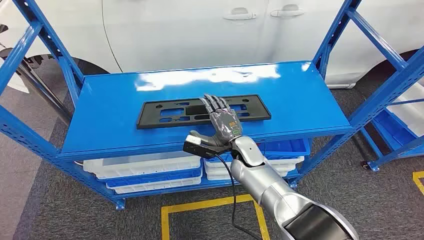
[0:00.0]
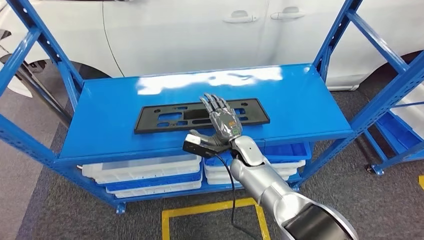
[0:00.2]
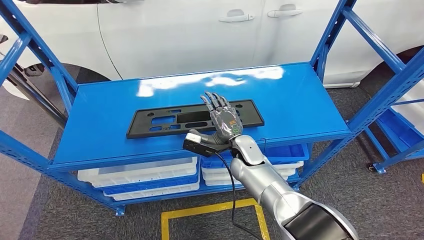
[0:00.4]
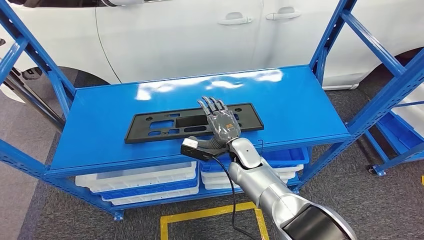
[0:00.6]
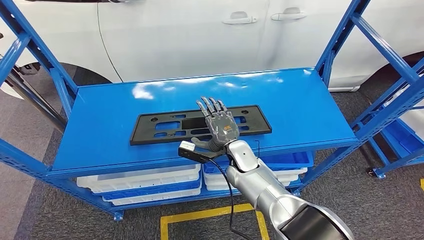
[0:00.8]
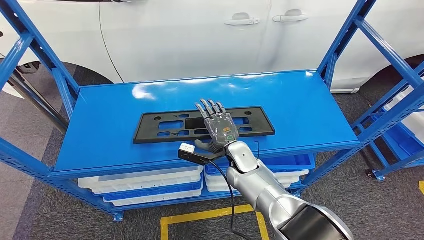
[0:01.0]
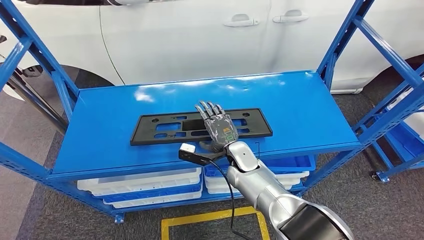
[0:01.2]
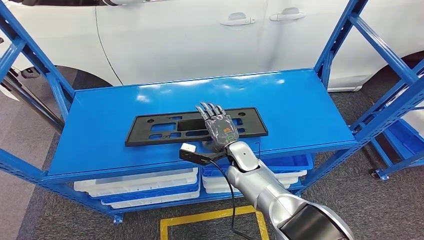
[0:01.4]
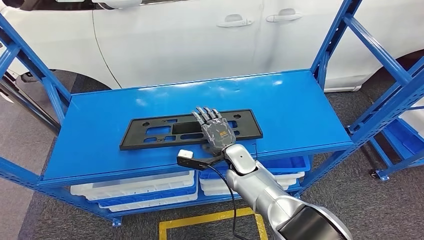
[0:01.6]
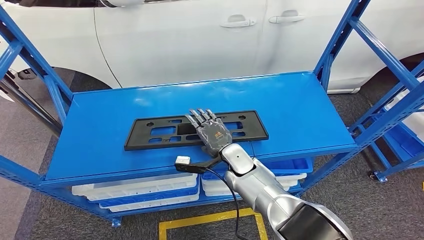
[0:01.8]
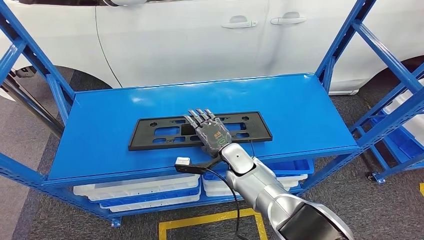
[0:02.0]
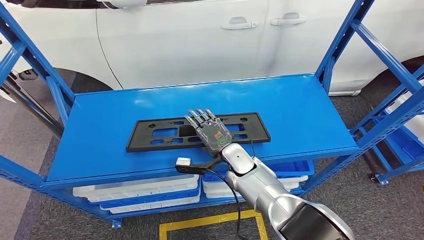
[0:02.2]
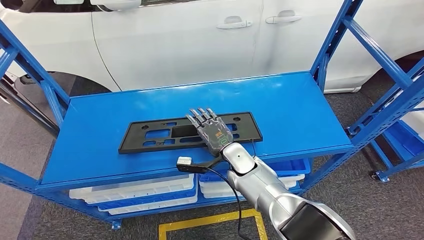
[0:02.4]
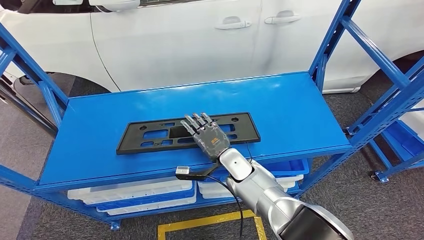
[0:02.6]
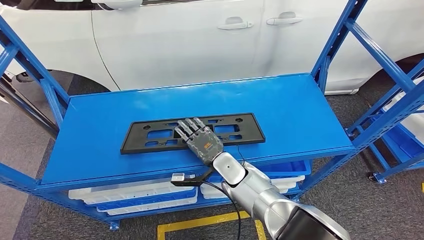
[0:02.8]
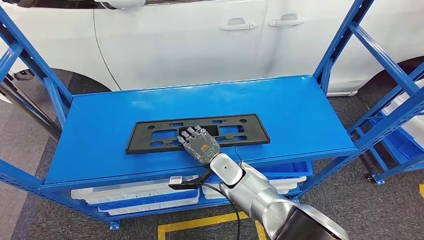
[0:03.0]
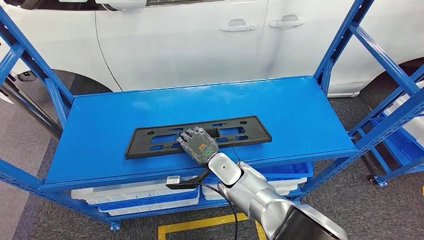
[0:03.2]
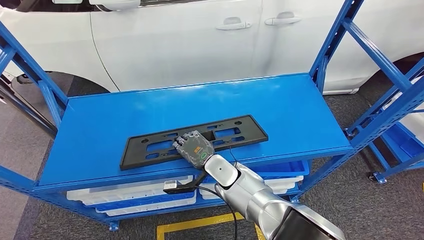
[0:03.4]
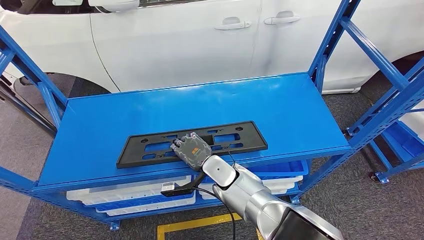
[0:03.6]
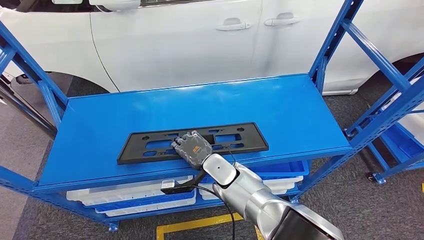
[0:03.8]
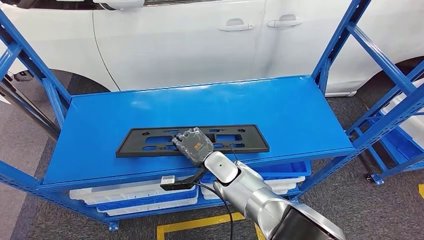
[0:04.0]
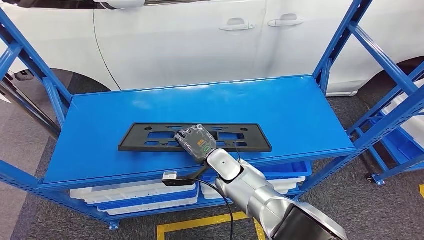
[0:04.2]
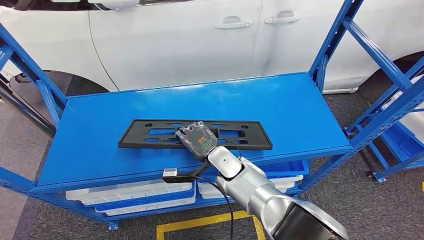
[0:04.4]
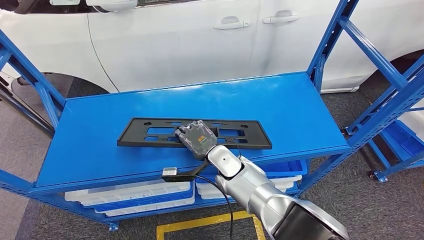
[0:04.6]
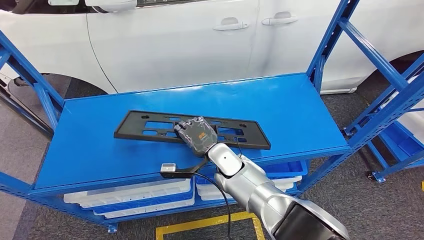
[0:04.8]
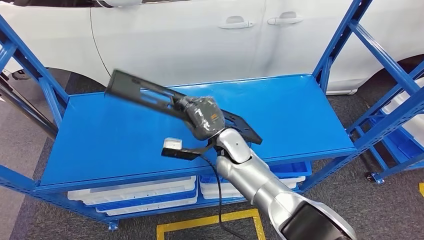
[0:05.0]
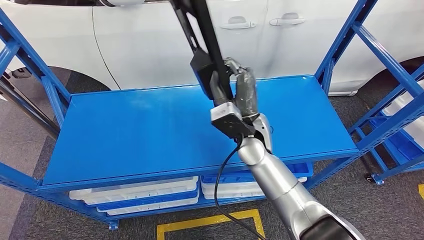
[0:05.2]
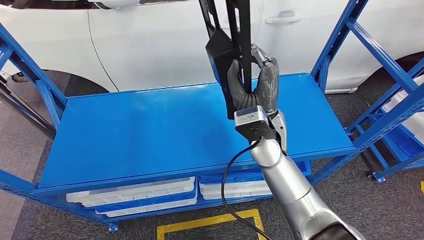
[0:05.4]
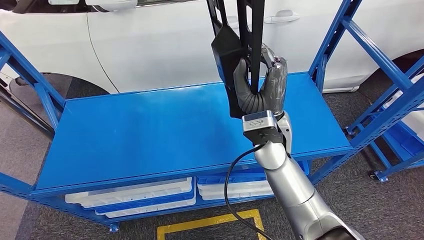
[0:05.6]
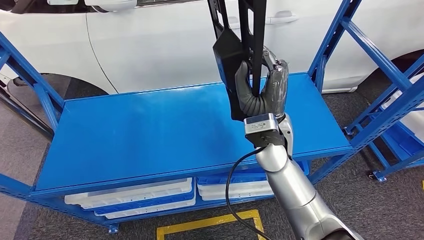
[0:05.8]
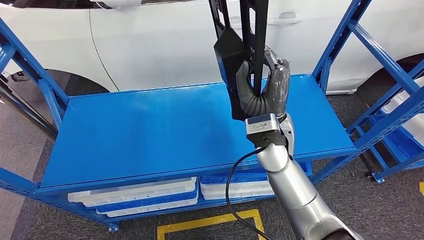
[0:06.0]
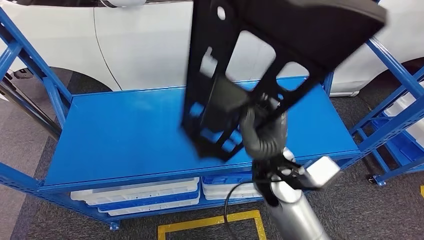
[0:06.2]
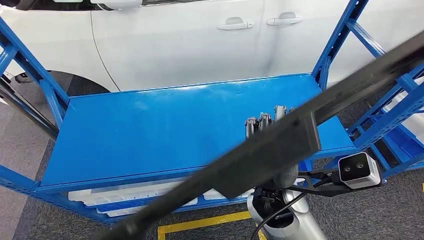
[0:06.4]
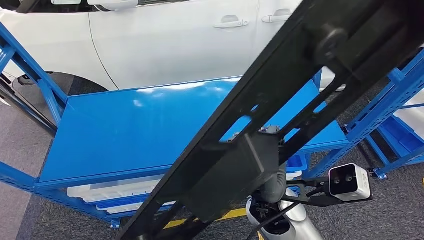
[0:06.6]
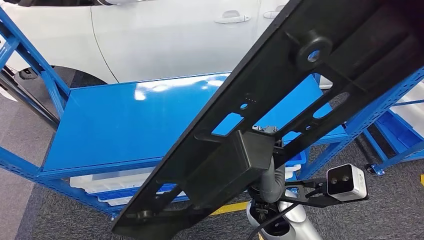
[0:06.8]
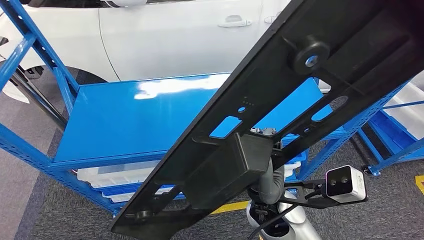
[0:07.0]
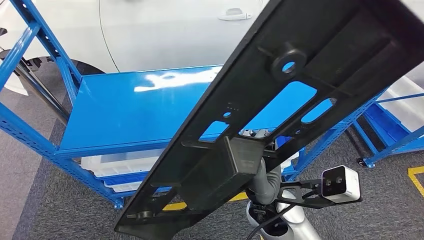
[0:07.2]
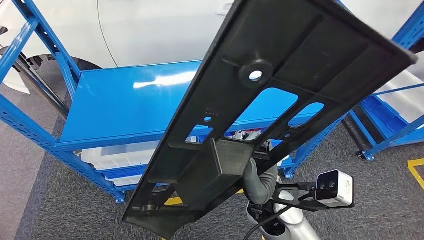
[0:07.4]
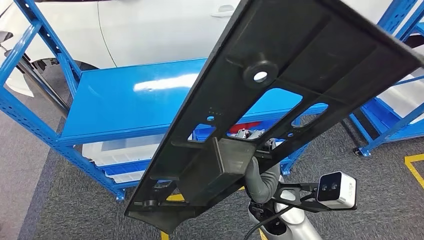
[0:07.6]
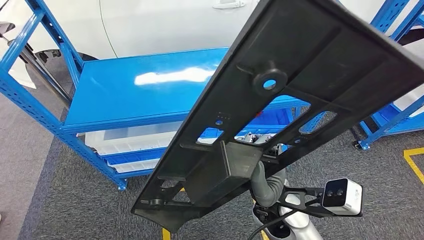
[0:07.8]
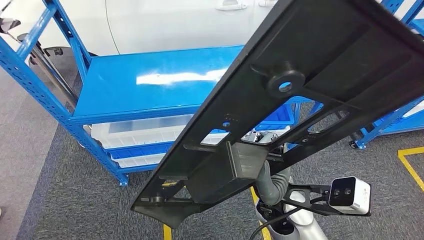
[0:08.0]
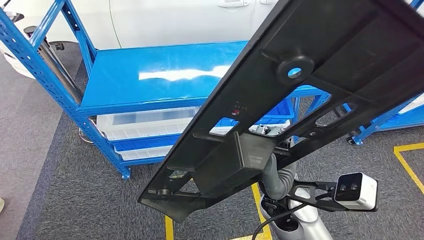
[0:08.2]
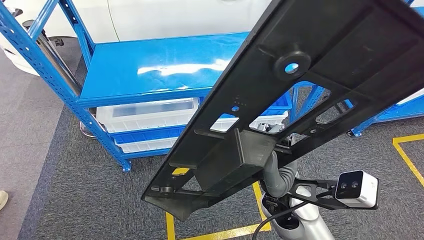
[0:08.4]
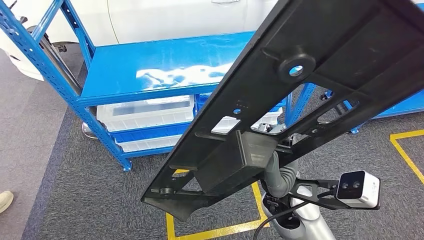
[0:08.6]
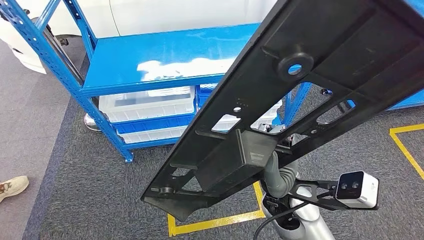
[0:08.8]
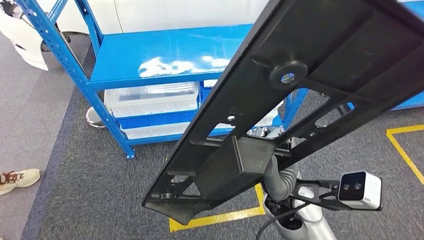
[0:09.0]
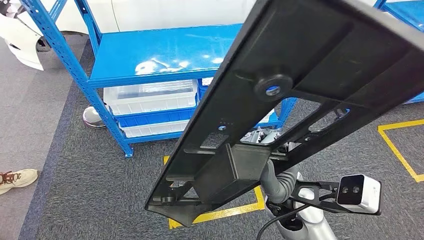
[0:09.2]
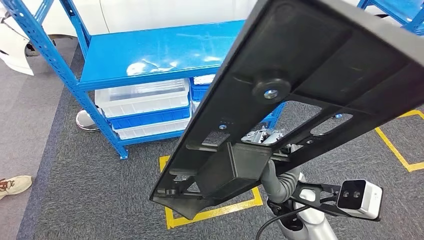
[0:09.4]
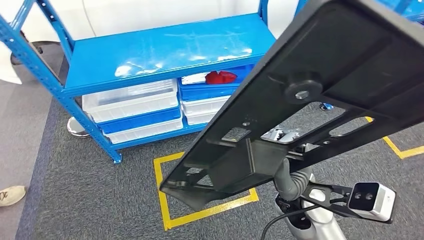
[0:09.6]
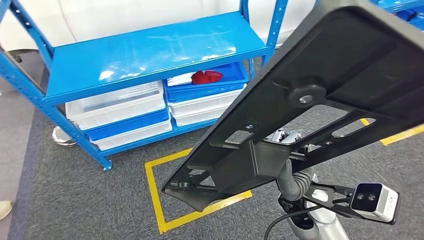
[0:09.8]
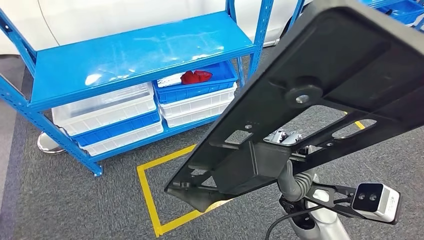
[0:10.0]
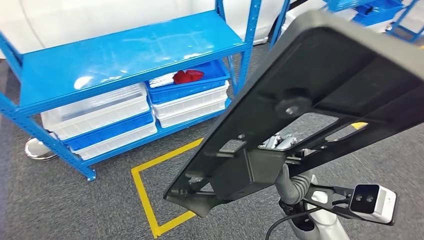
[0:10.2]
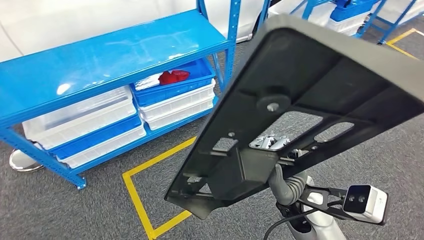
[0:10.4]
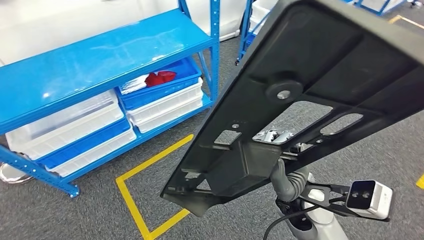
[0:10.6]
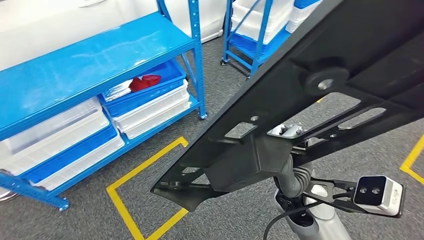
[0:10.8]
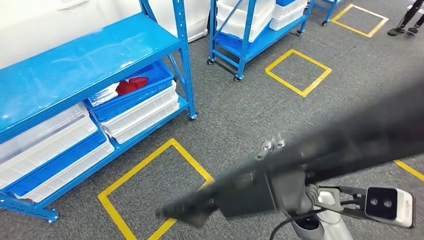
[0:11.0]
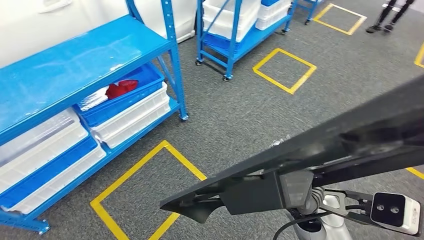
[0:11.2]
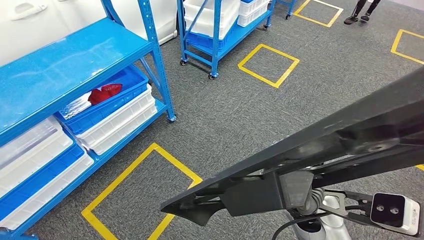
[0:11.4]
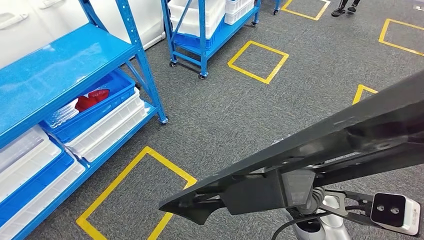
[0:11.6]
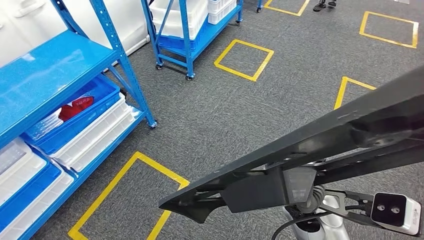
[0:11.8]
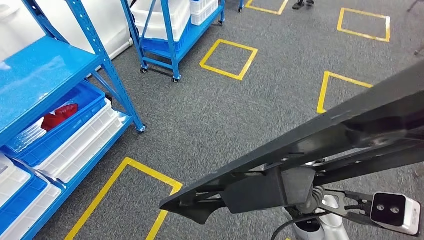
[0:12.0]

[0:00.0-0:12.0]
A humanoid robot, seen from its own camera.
Step, 0:00.0 to 0:05.4: Pick up the large material from the shelf.
0:03.0 to 0:04.4: There are only small adjustments of the hands.

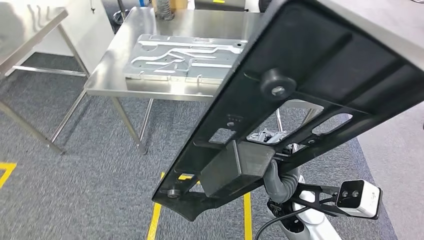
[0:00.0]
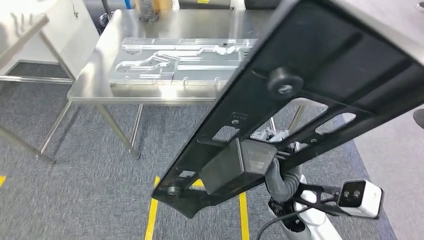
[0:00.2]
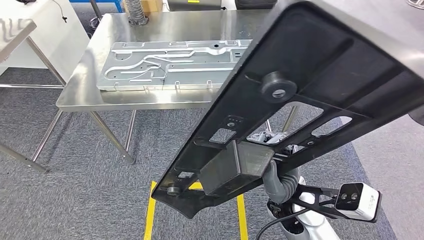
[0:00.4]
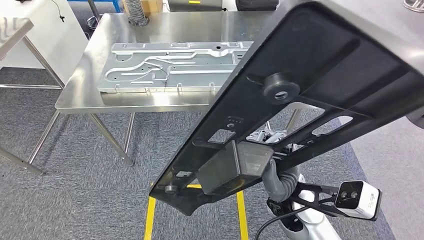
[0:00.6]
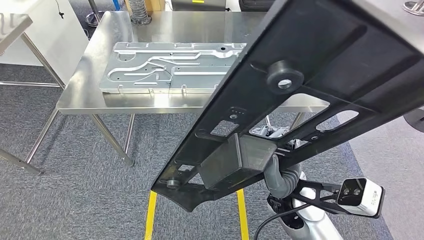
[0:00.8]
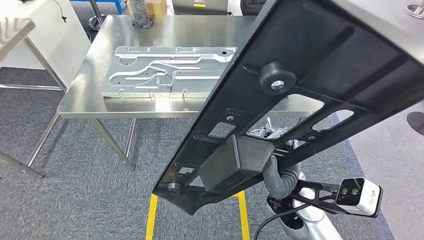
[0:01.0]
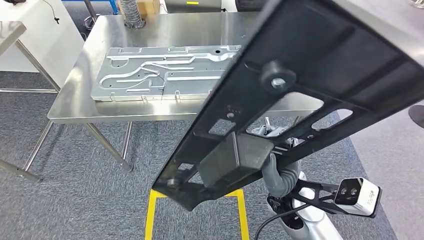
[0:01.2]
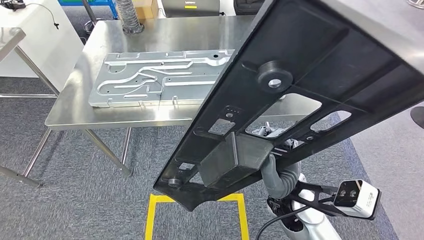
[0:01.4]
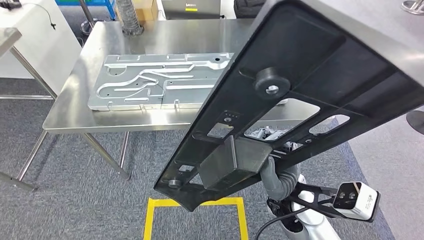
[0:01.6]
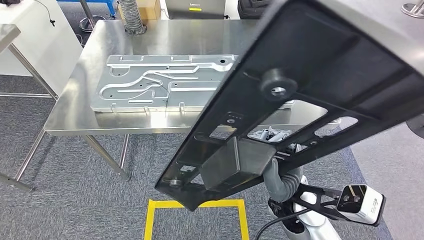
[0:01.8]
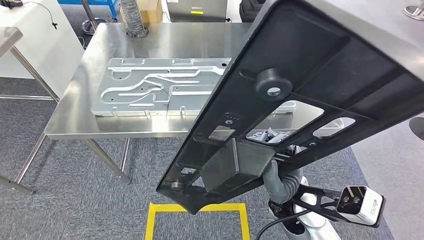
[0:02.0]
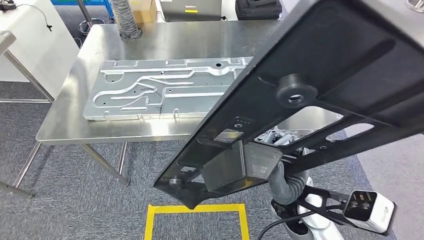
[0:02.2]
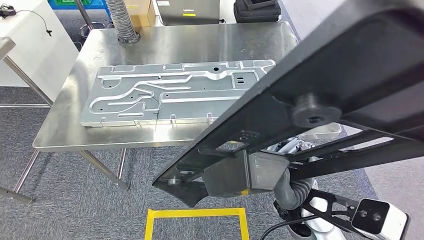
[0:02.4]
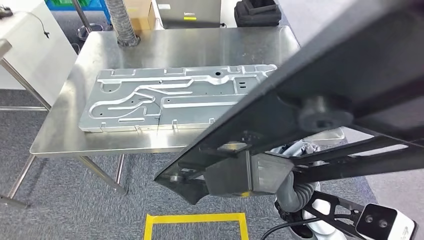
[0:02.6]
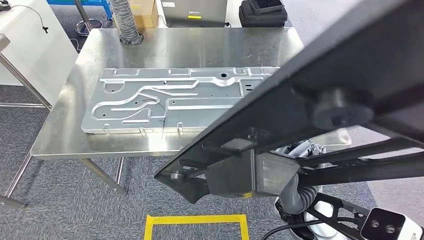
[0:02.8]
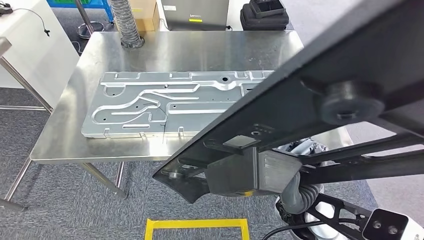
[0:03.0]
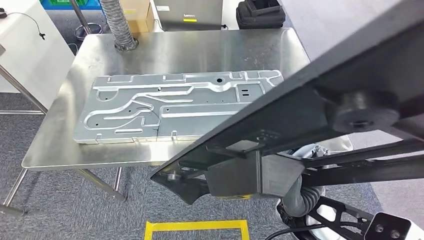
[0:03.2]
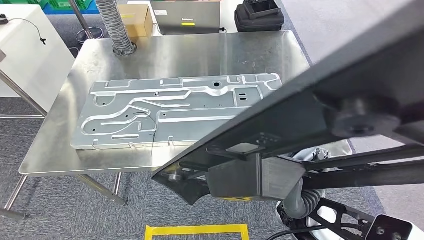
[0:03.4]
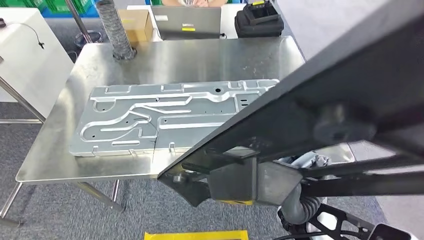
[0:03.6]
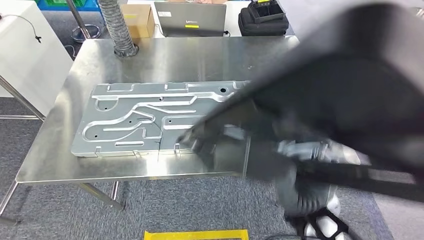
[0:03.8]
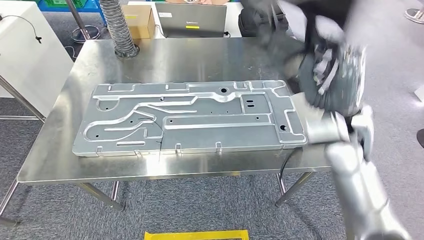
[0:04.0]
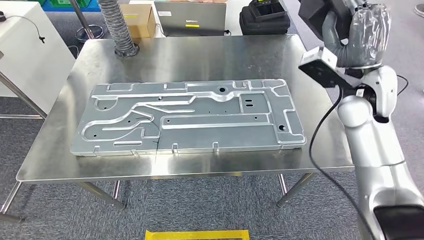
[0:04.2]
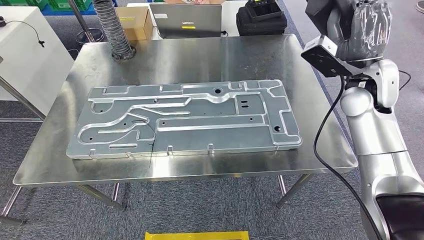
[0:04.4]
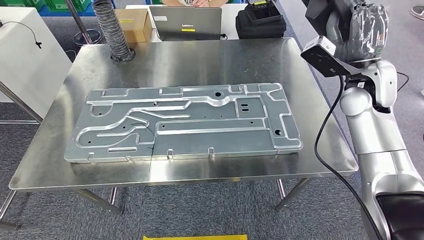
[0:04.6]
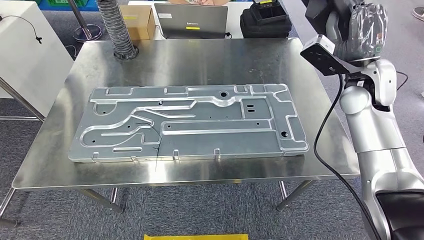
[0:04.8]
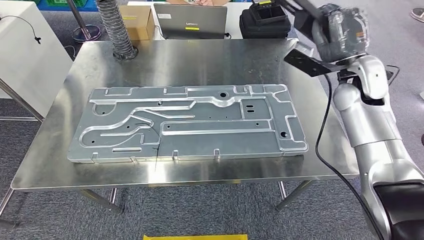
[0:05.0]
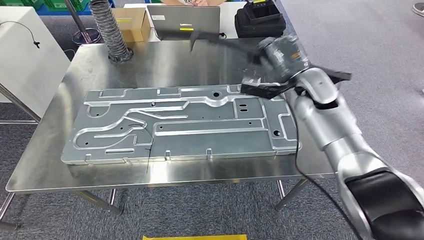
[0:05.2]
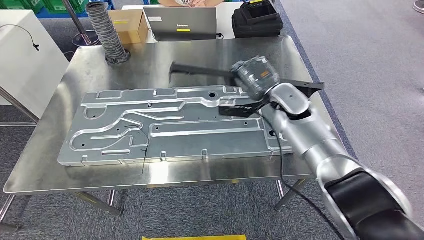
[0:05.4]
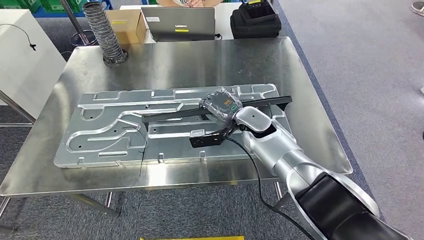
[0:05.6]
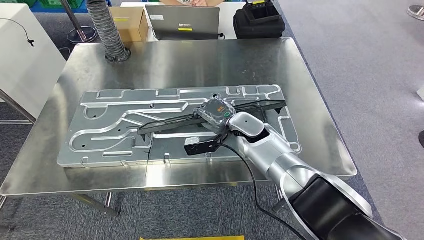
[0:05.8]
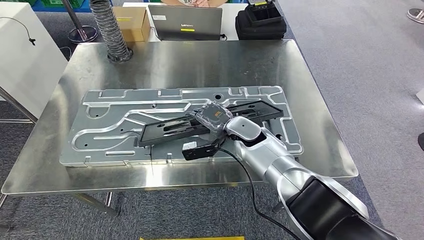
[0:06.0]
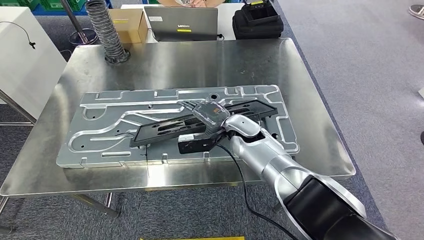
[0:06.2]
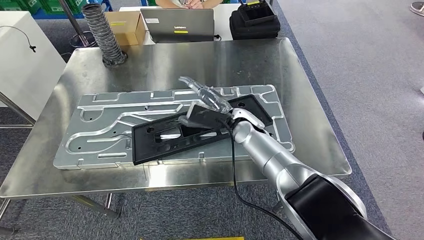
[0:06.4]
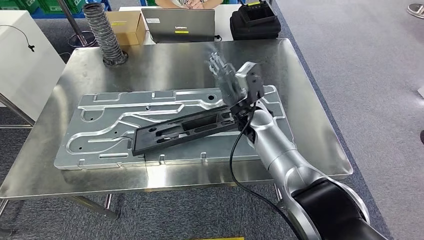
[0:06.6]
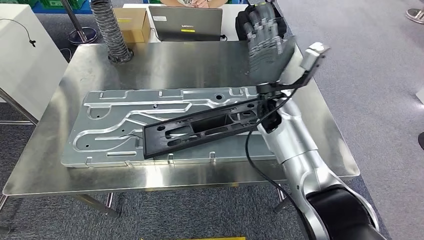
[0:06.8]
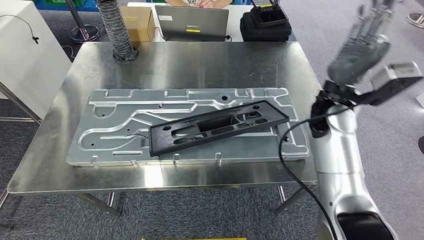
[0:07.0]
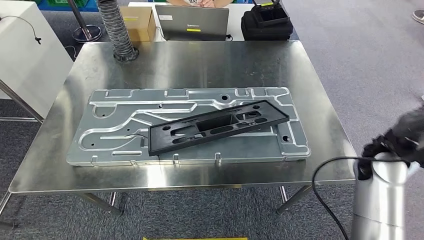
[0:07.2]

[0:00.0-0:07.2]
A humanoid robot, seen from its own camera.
Step, 0:00.0 to 0:04.0: Move the large material to the workbench.
